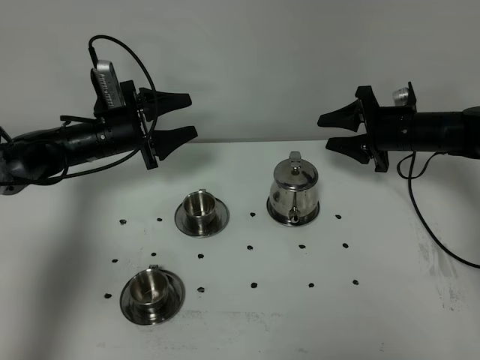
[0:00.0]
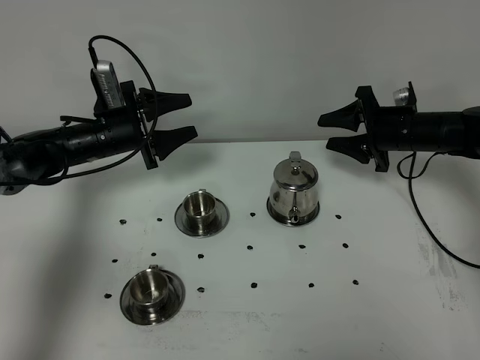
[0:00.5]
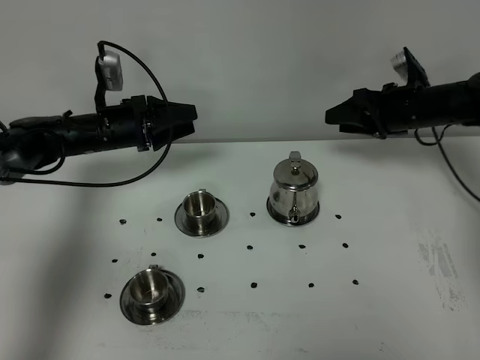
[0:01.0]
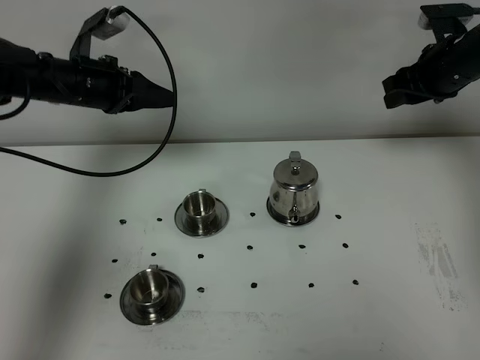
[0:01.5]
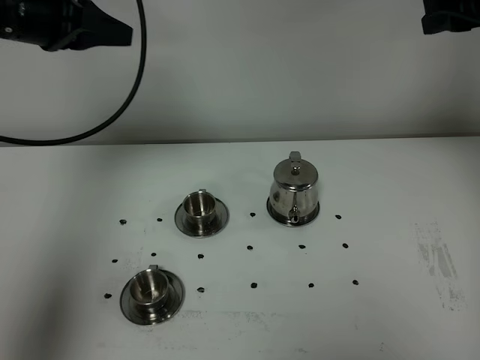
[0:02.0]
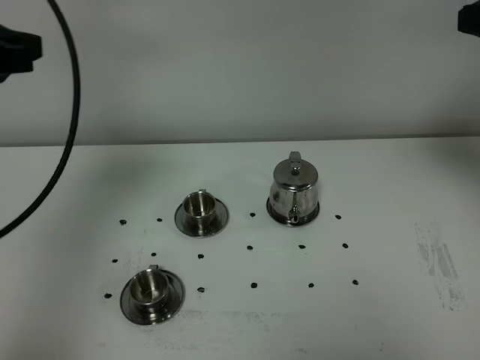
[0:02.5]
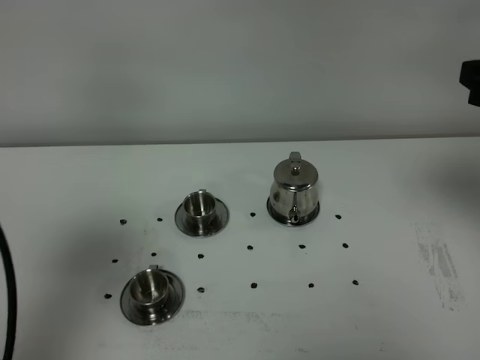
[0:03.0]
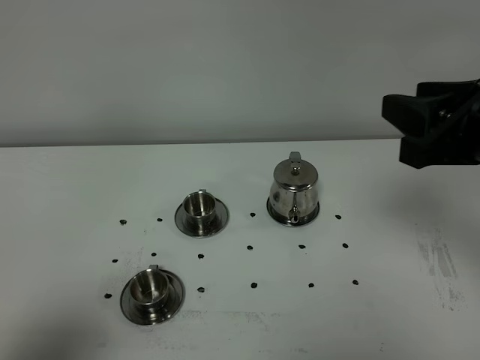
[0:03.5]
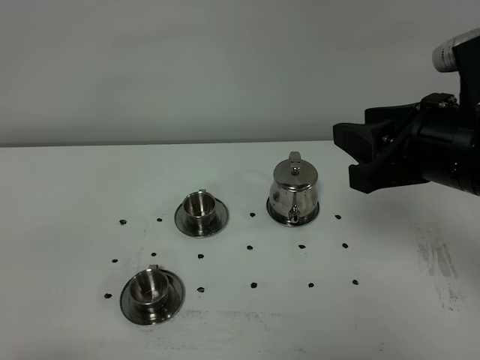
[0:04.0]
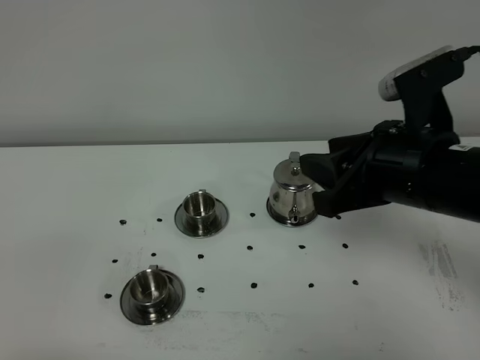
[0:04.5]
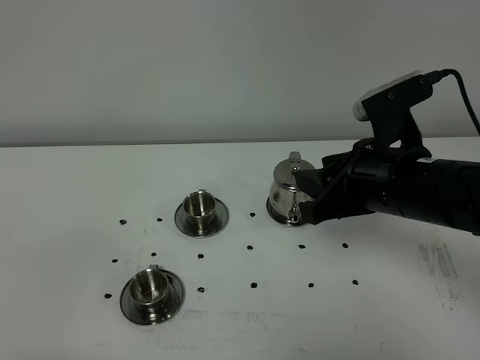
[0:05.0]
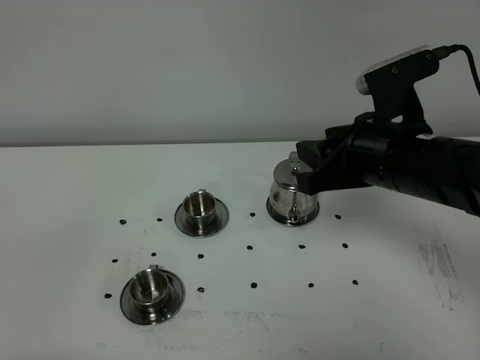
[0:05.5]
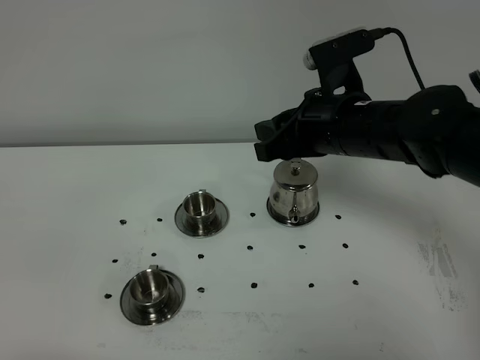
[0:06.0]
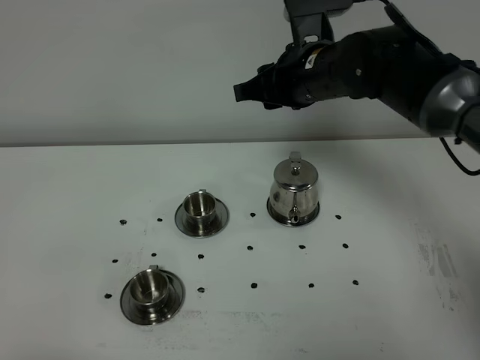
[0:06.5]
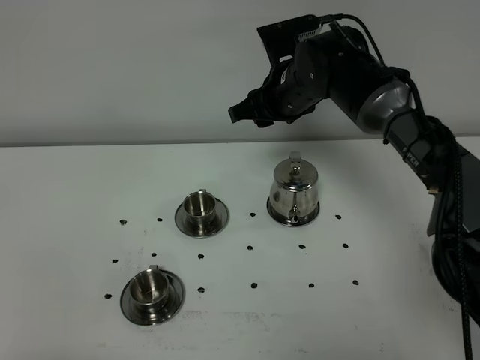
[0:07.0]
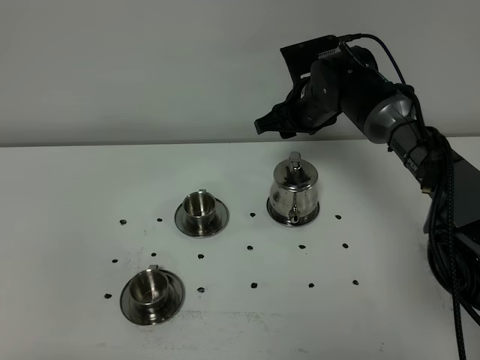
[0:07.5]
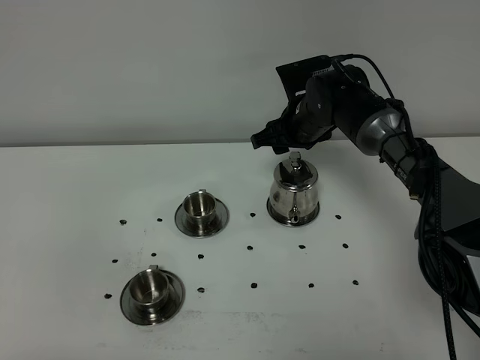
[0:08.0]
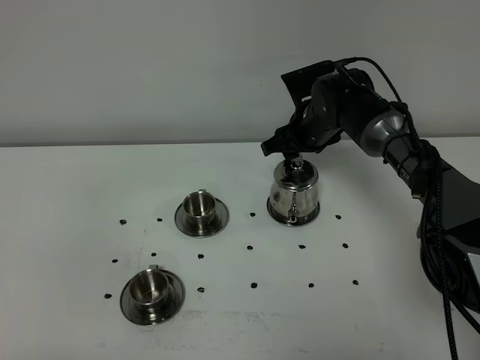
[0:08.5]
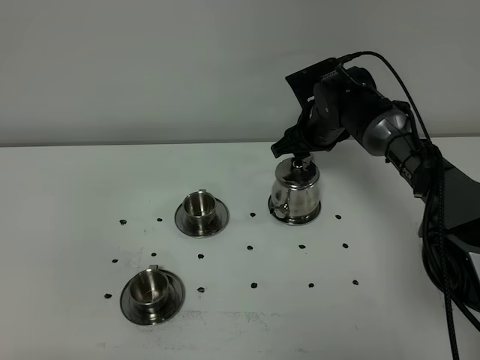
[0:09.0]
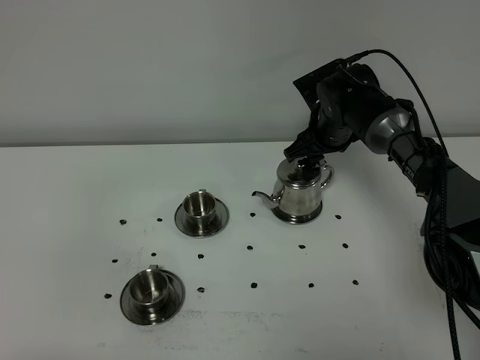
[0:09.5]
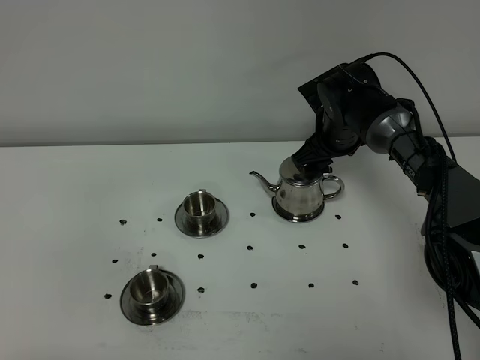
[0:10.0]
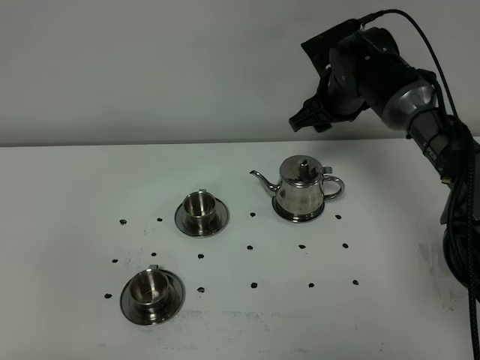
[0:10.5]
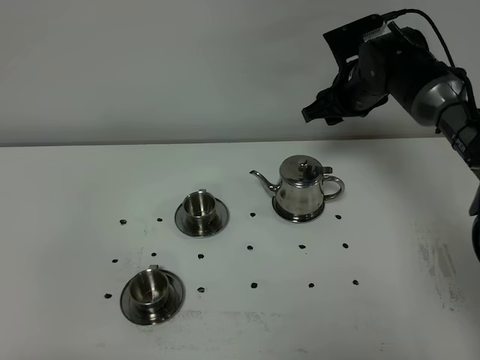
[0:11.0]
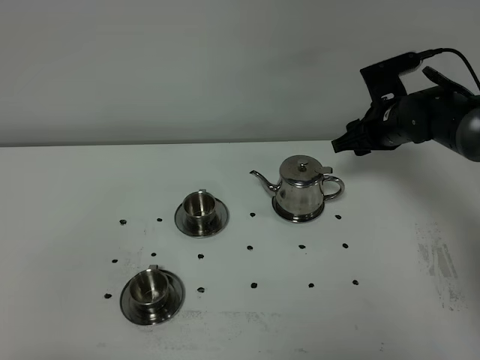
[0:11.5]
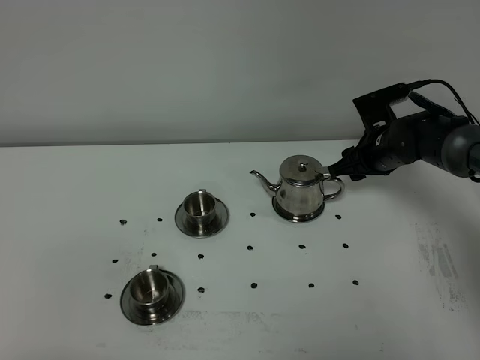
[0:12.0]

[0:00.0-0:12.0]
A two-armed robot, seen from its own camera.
Task of the whole recording: grasp the stainless steel teapot and pour the tea into the two stainless steel teacups one by one, put the stainless steel teapot back in its original place.
0:00.0 to 0:02.0: The two grippers go some 25 cm upward. The left gripper closes.
0:02.0 to 0:04.0: The right gripper moves backward, to the left and downward, roughly 20 cm. Meanwhile the left gripper shifts about 40 cm backward.
0:04.0 to 0:06.0: The right gripper heads forward, to the left and downward, covering about 15 cm.
0:06.0 to 0:08.0: The right gripper goes roughly 20 cm forward and downward.
0:10.0 to 0:12.0: The right gripper goes some 10 cm to the right, and moves roughly 5 cm upward and comes back.

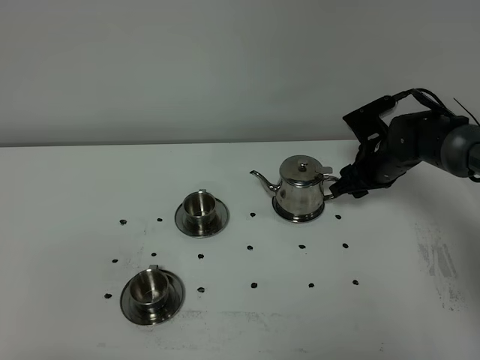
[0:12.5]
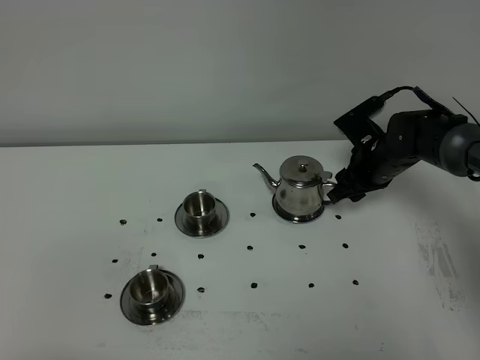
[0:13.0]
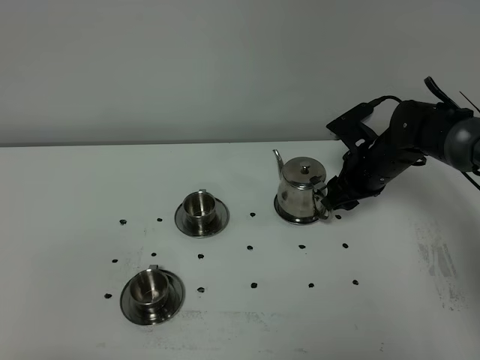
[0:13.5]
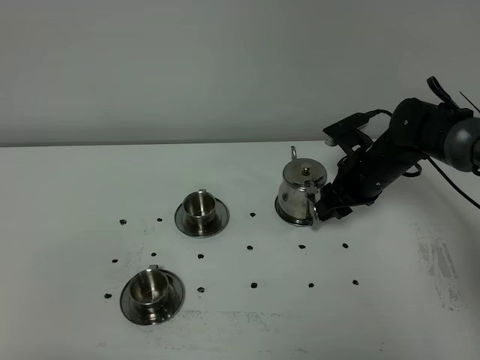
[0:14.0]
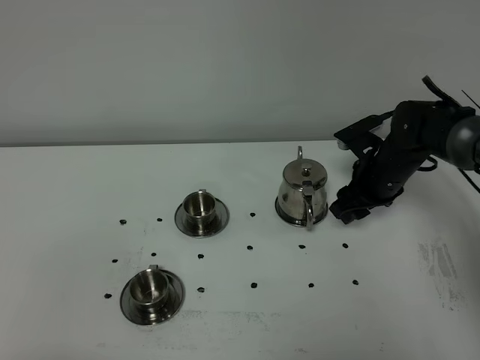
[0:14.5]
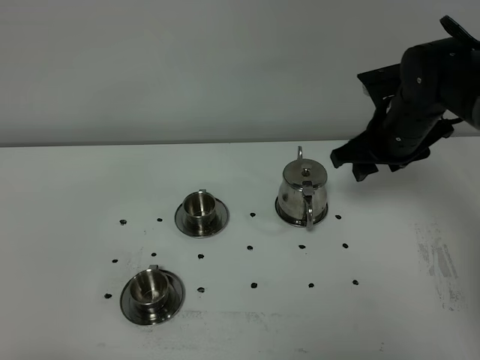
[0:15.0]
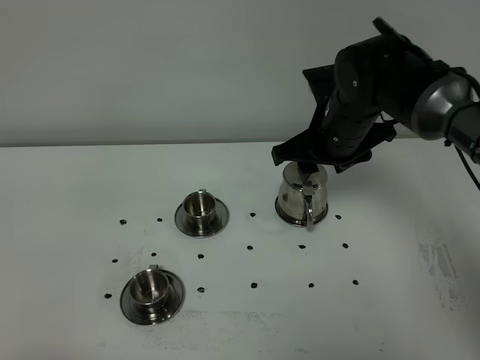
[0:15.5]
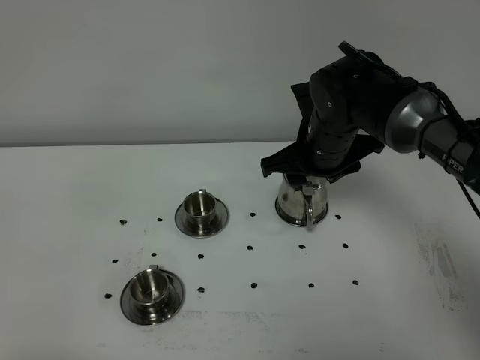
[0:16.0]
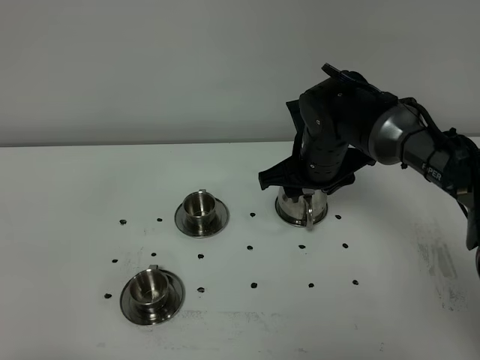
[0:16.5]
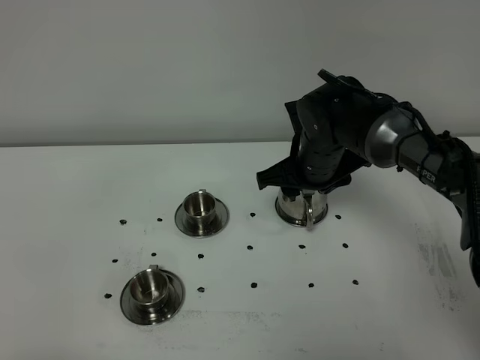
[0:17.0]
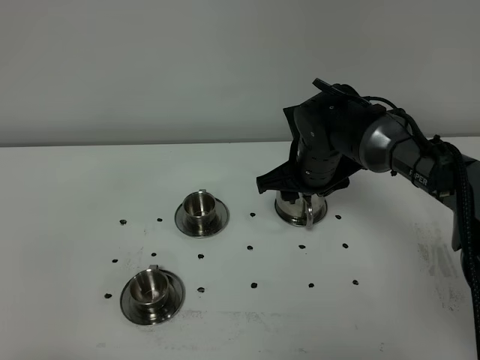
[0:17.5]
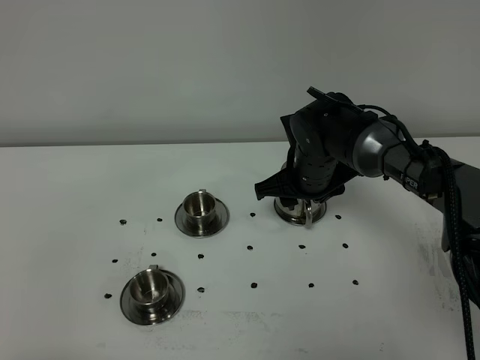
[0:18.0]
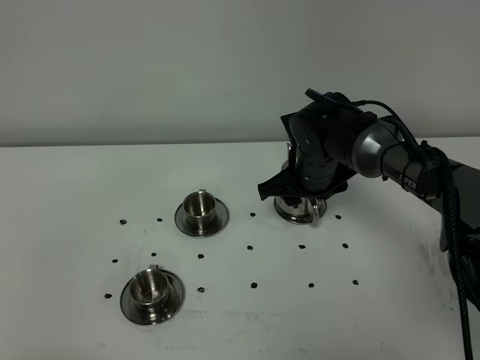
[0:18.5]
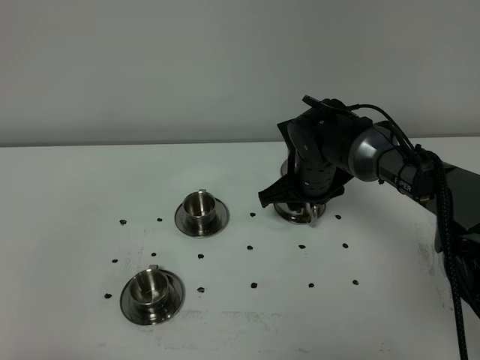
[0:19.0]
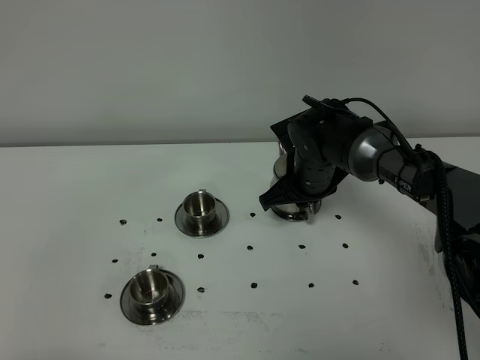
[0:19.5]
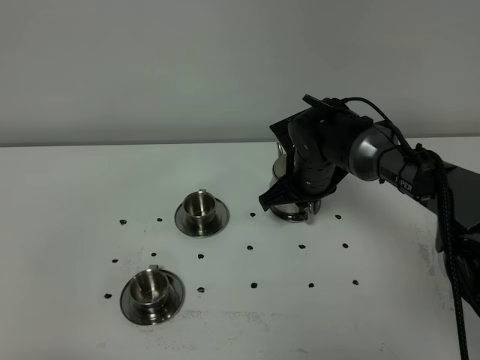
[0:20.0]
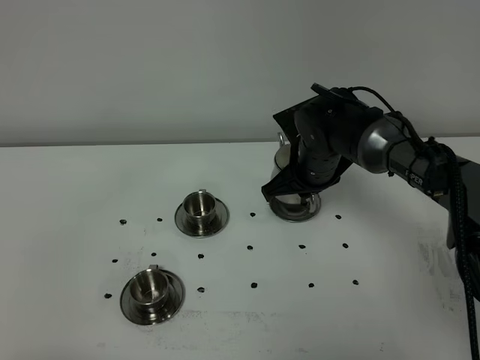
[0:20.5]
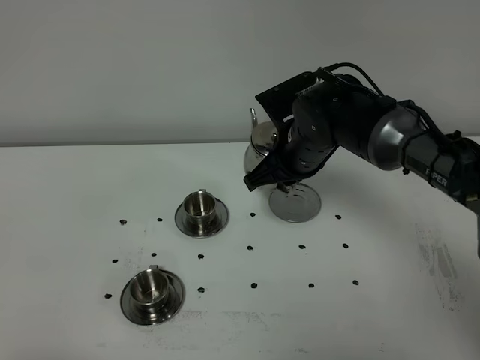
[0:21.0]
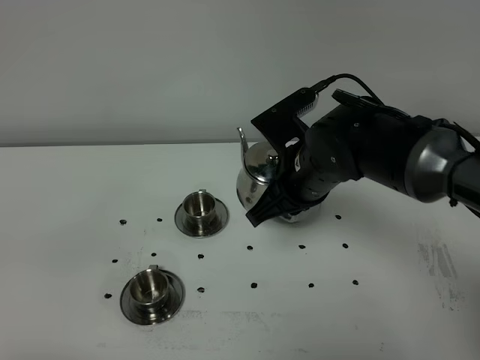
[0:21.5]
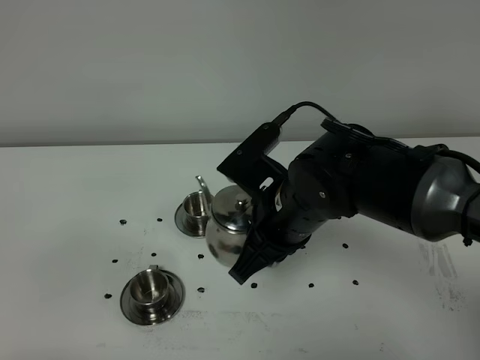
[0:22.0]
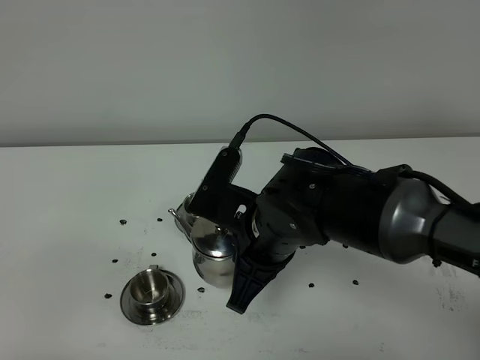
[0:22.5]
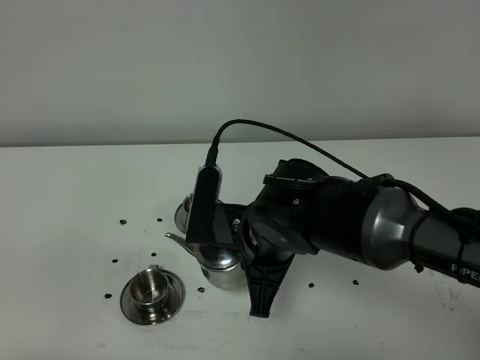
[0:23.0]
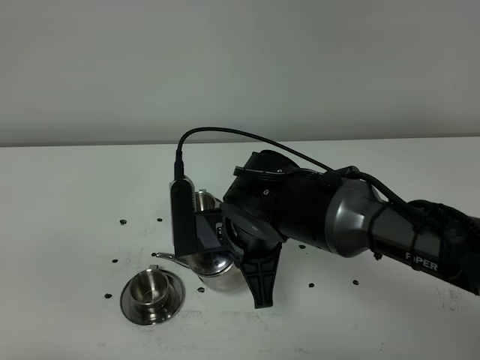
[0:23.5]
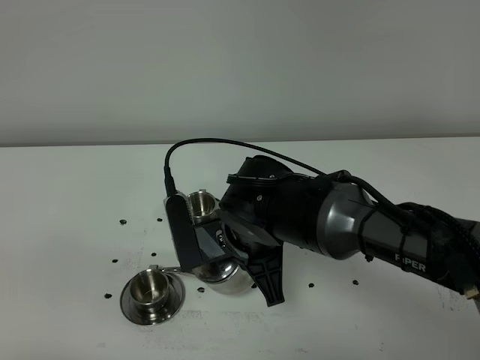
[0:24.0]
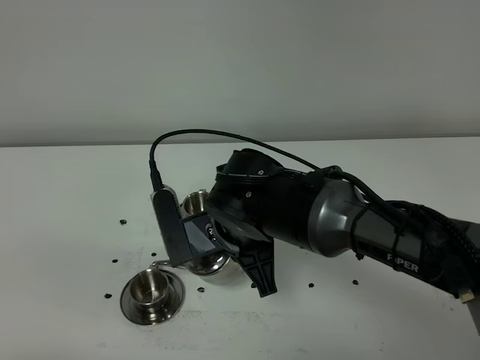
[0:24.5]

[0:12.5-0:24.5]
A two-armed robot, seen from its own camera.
Task of the whole recording: grasp the stainless steel teapot and pour the tea into the two stainless steel teacups one by one, put the stainless steel teapot back in its original place.
Step, 0:12.5 to 0:20.5: Pick up the teapot with the right gripper.
0:14.5 to 0:16.5: The right gripper travels to the left and upward by about 10 cm.
0:16.5 to 0:18.5: The grippers make only small movements.
0:18.5 to 0:20.5: The right gripper closes its fingers.
0:20.5 to 0:22.5: The right gripper goes approximately 15 cm backward.

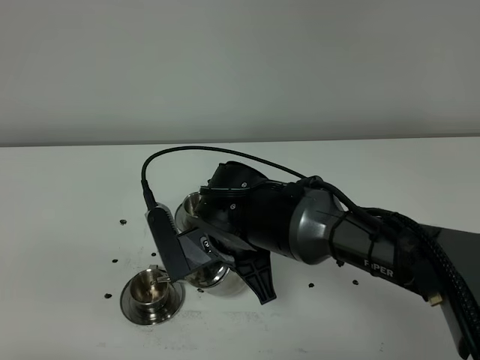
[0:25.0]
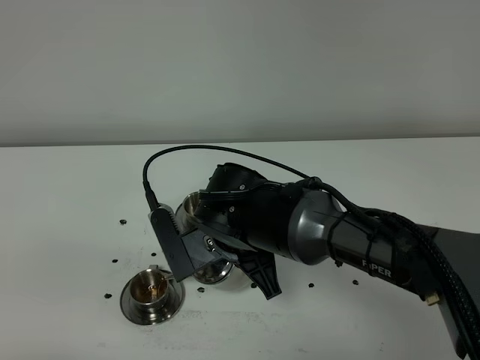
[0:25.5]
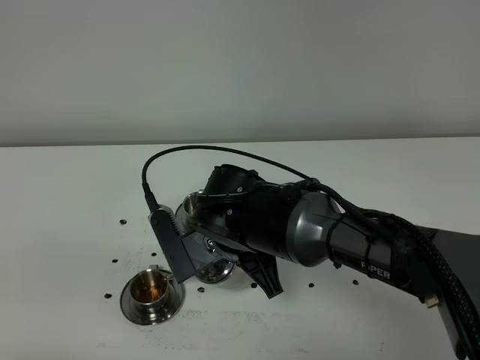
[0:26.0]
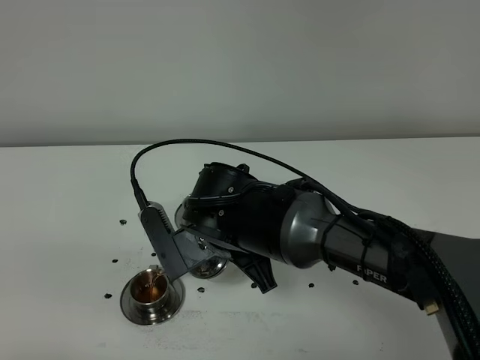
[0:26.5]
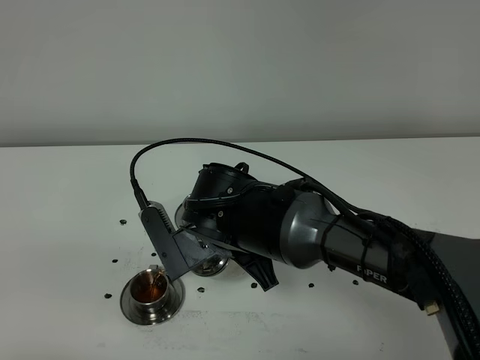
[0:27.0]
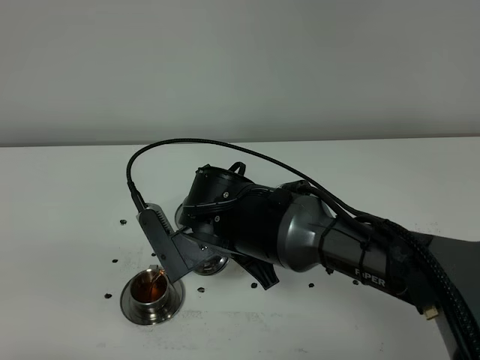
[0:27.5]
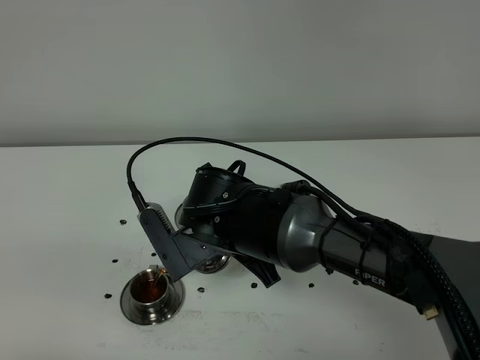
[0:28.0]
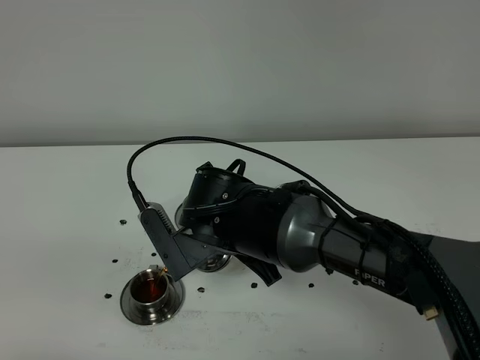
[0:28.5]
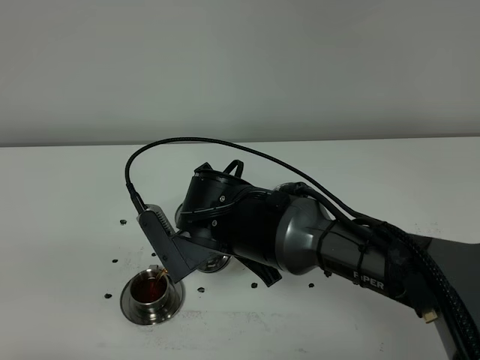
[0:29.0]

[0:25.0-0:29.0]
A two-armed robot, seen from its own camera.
Task of the whole recording: grasp the stainless steel teapot and pour the tea into the two stainless steel teacups one by one, put the stainless steel teapot back in its original place.
0:25.0 to 0:27.0: There are only small adjustments of the grippers.
0:27.0 to 0:29.0: Both grippers stay about where they are.
